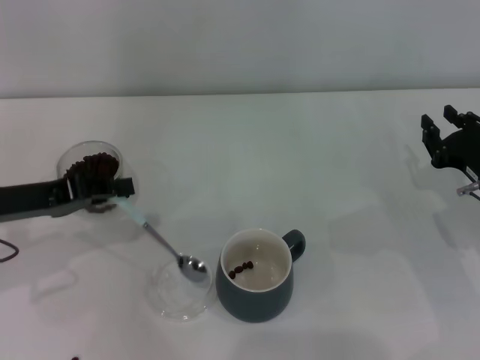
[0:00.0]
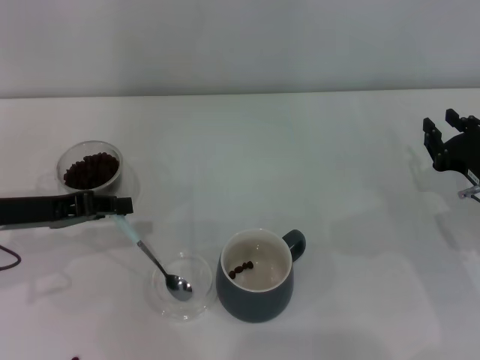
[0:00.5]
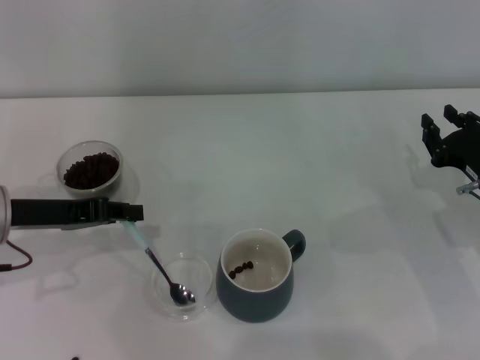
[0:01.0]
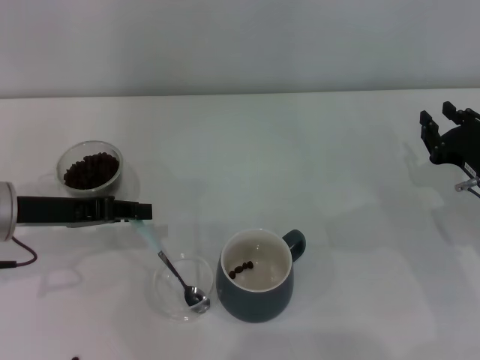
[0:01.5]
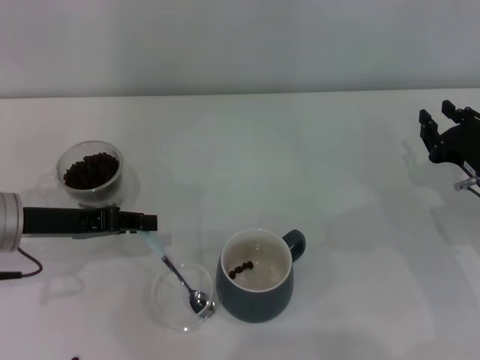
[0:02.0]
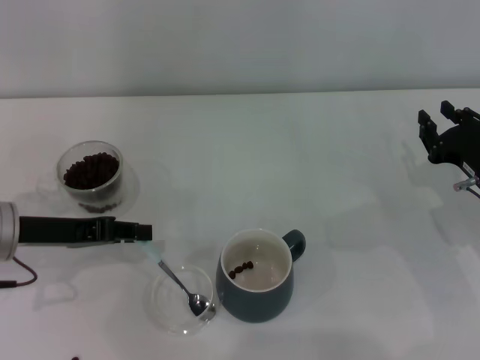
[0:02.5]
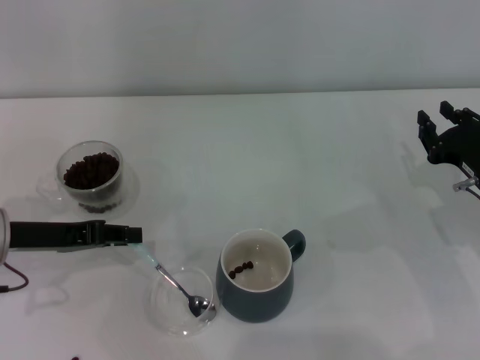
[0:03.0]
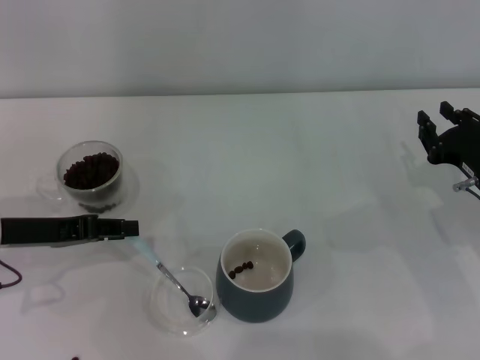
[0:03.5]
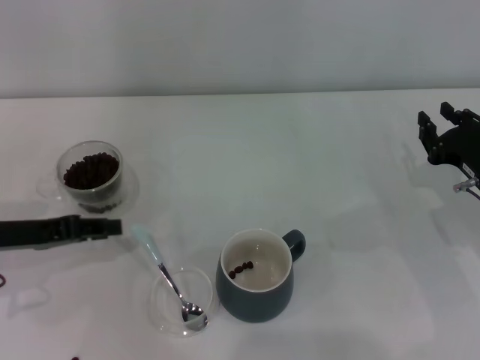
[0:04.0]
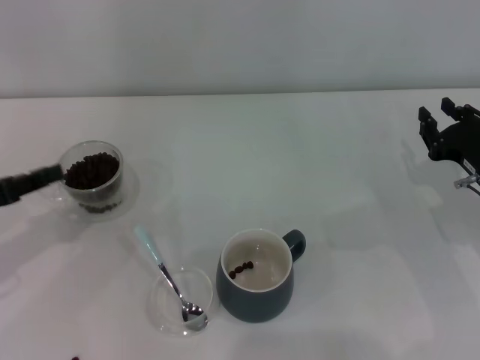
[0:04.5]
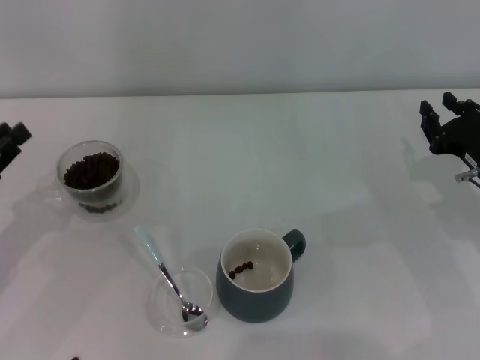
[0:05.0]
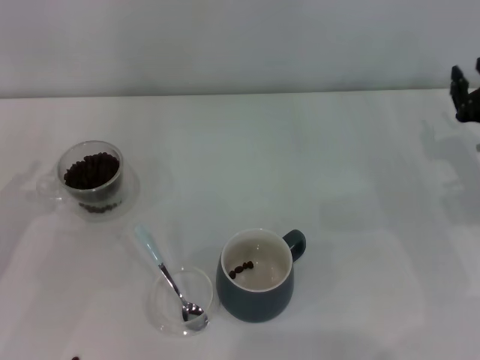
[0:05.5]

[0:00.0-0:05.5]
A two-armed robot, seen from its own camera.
Task of the whole recording: Use a blue spoon to take out the coffee beans from the glass and pour them into the gray cup.
0:00.0 to 0:03.5: The grippers stay close to where they were, moving slightly.
0:03.5 to 0:05.5: The left gripper changes place by some 5 cm.
